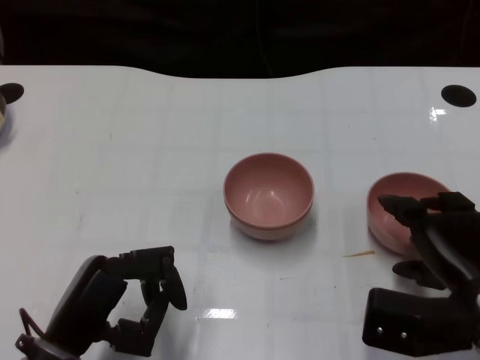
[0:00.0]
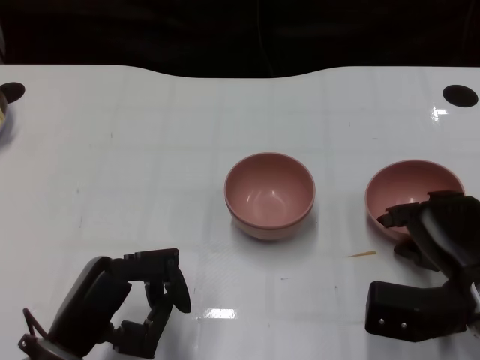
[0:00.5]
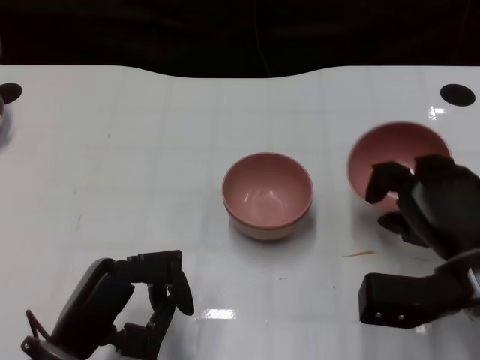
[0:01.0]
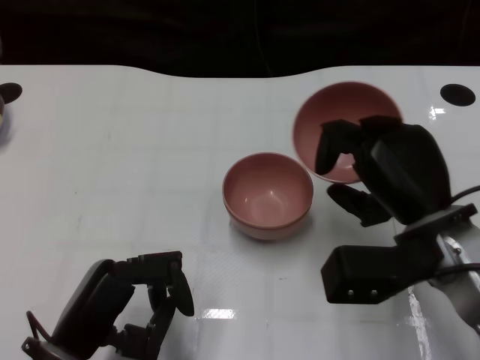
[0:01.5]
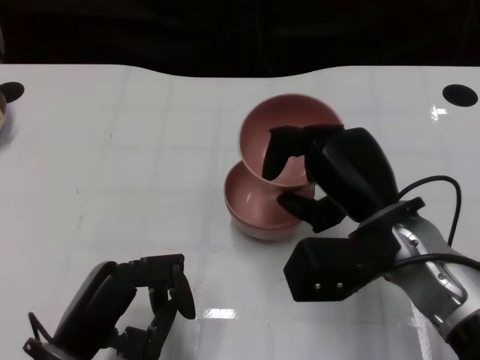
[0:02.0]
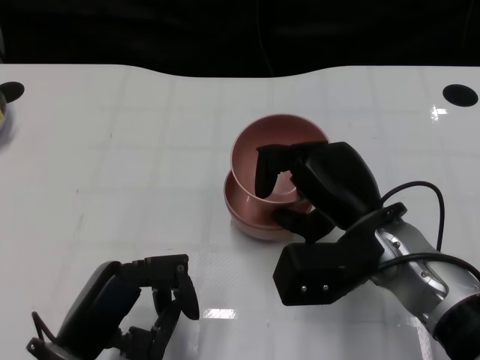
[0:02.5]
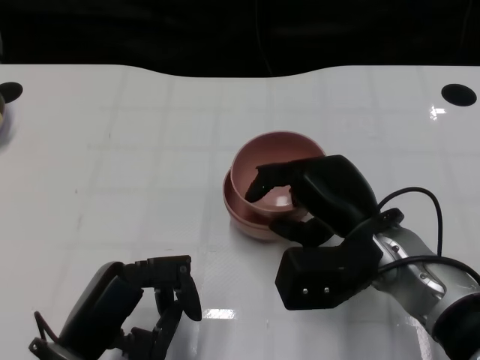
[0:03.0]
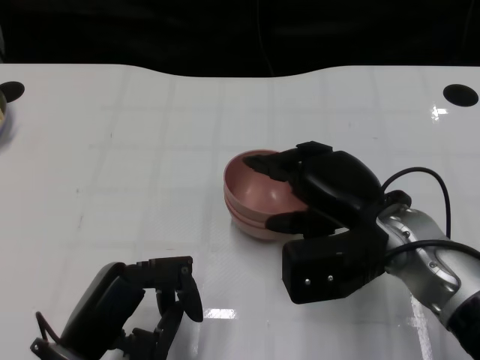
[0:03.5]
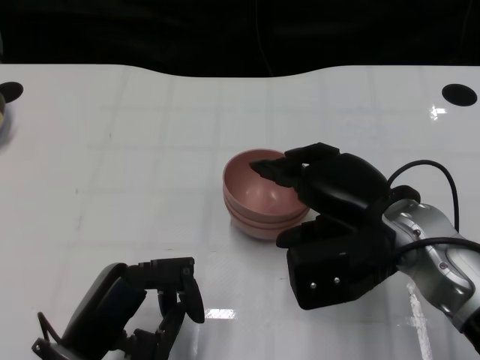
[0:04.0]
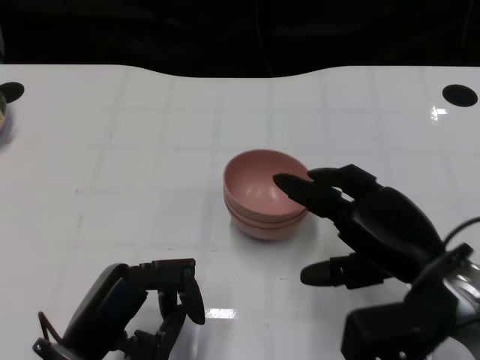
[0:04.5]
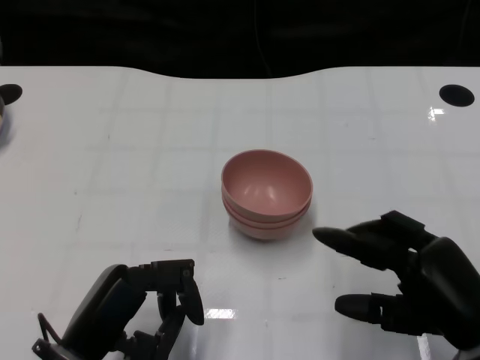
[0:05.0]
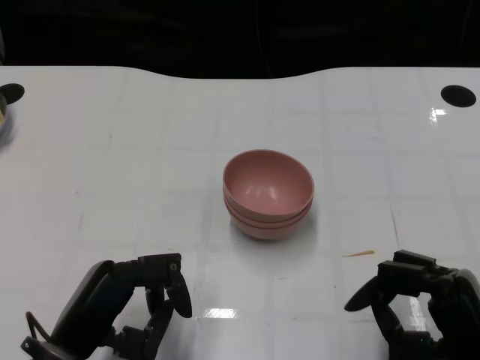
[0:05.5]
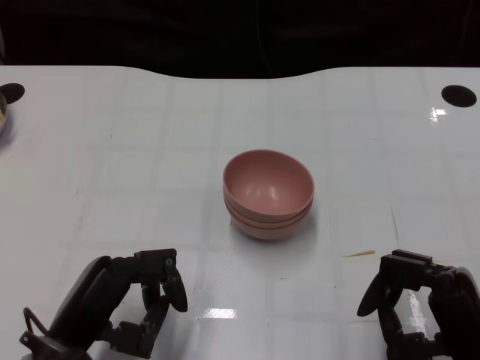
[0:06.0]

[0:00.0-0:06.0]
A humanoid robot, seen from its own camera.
Task of the whole recording: Pick up the bowl on one side of the table and place it on top of the middle bowl, then pick up the bowl on the other side of the table and place it on top of the middle bowls.
Step, 0:01.0 to 0:04.0: Place the bowl on the right onto the bowl in the middle with right gripper.
0:00.0 to 0:02.0: The right hand shifts some 10 cm to the left and forward.
0:04.0 to 0:06.0: The right hand moves backward, downward and to the right, roughly 15 cm.

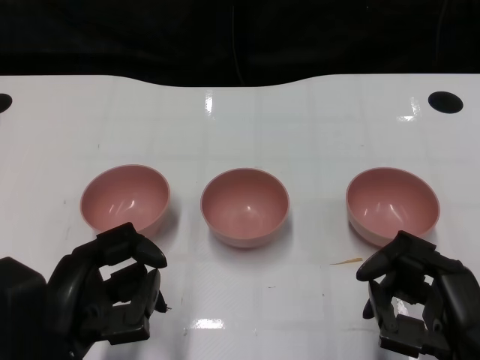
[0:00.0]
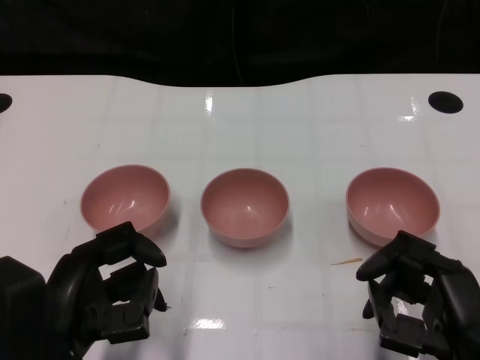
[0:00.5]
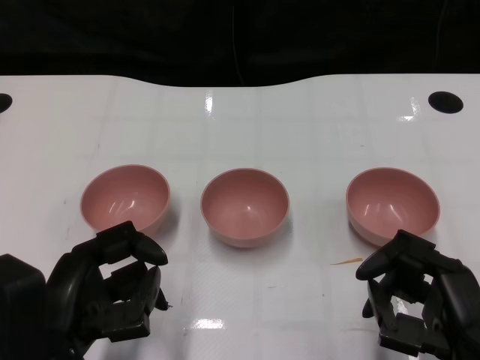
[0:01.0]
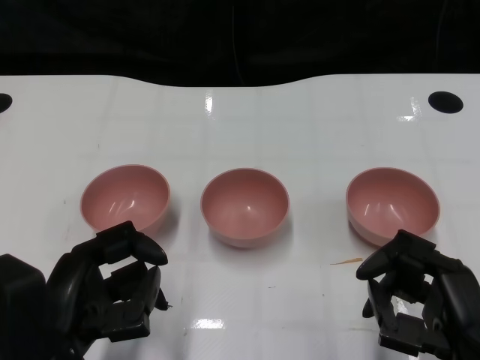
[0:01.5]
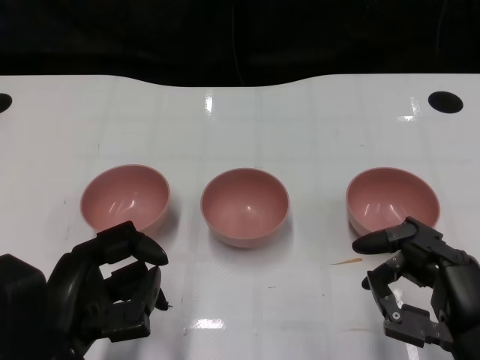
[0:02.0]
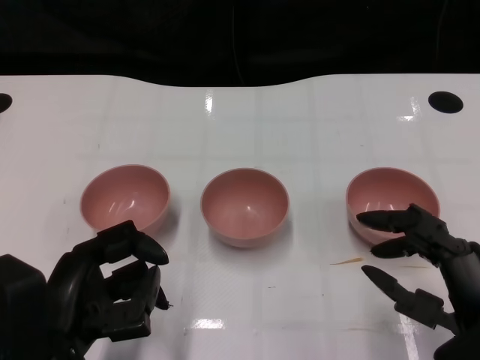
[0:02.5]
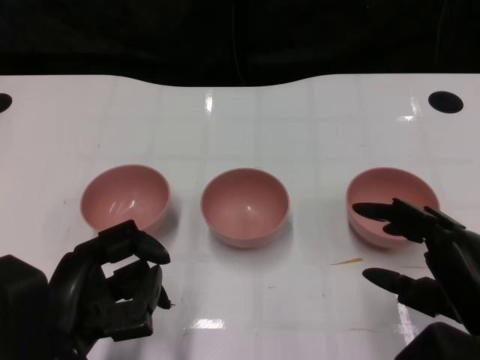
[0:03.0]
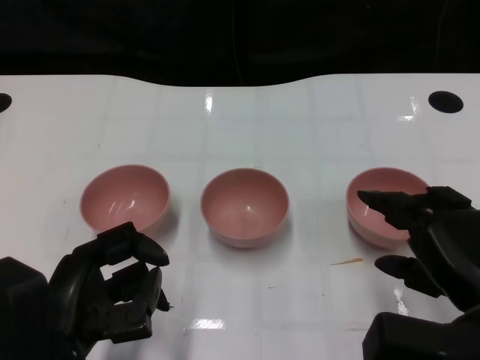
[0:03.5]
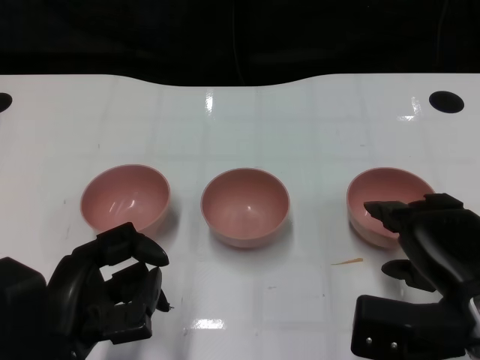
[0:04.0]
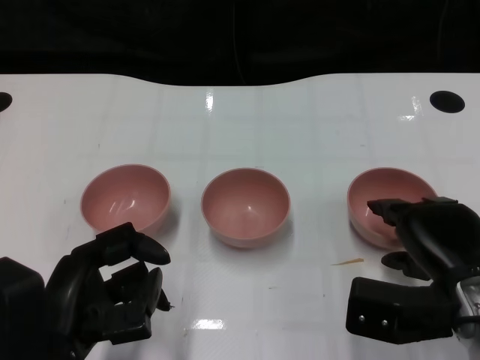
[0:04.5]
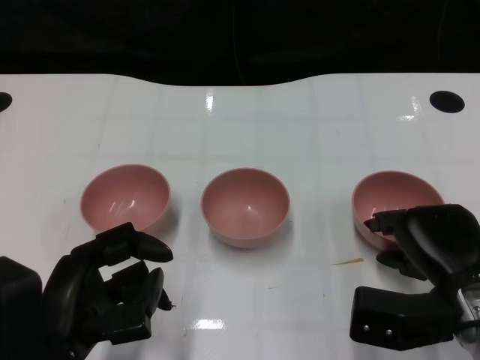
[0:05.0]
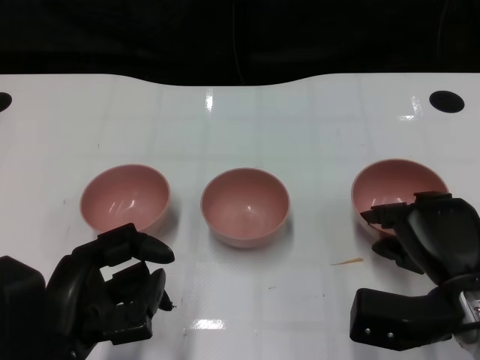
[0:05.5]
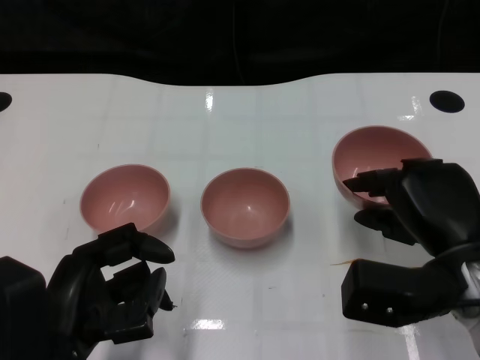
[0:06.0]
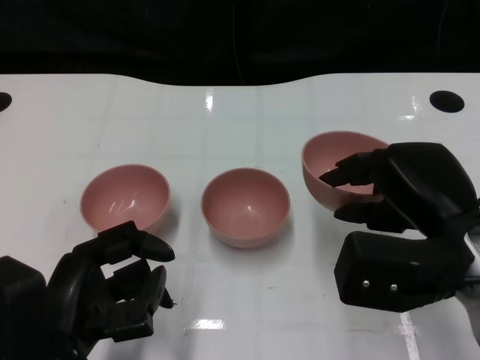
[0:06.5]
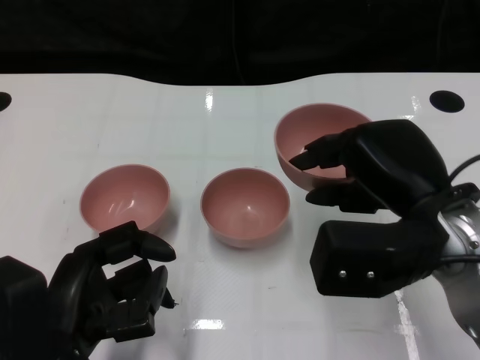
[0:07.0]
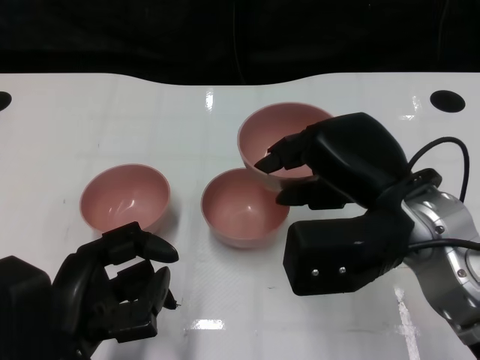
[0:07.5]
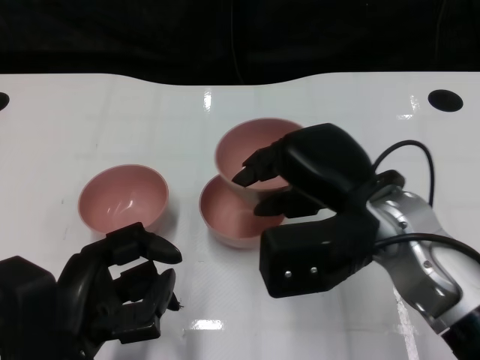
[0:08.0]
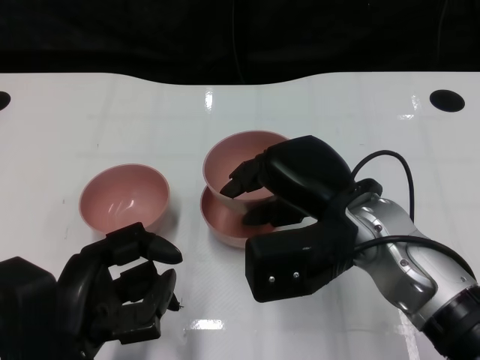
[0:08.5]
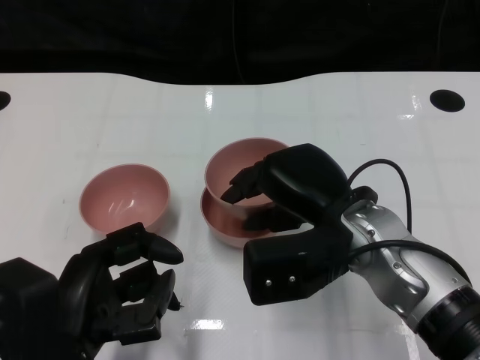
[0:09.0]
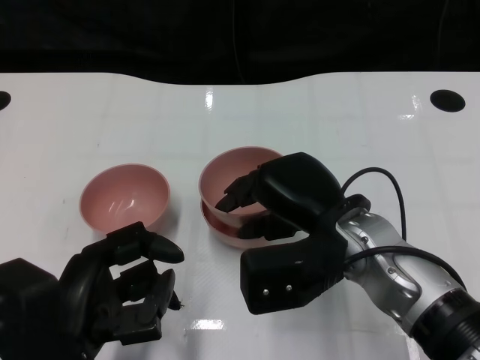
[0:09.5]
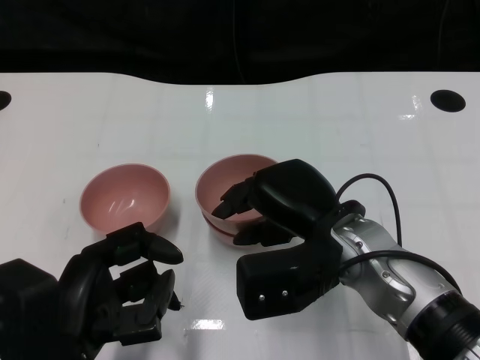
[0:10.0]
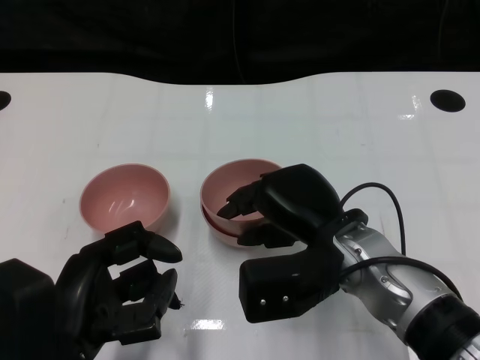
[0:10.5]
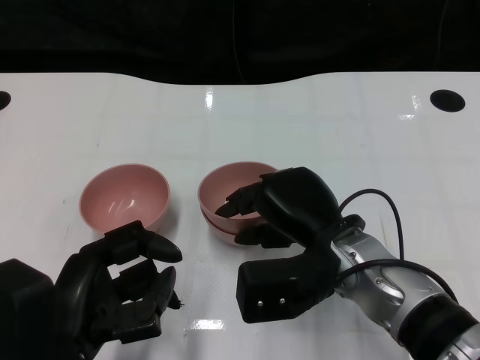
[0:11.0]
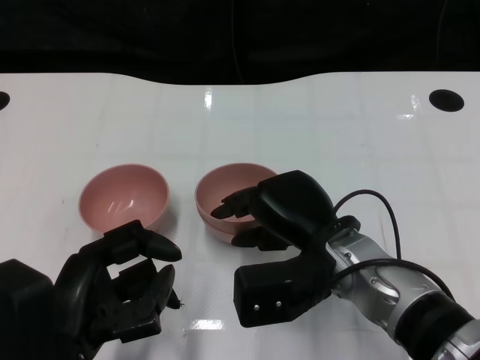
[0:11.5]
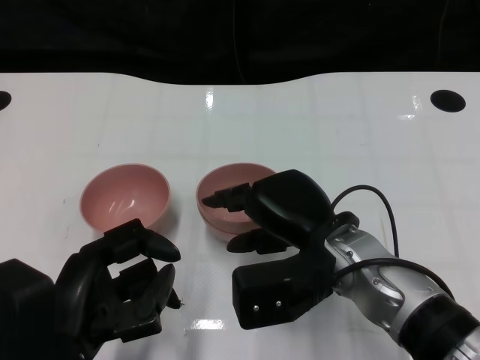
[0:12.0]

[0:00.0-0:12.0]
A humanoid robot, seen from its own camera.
Task of the whole recording: Pick up the bowl on one side of the table and place it on top of the middle bowl, then pick up the bowl on the other side of the table and place it on top of the middle bowls.
Step, 0:02.0 to 0:05.0: Grasp the bowl on the right with the right gripper.
0:02.0 to 0:04.0: The right hand heads forward, covering some 5 cm.
0:04.0 to 0:06.0: The hands stay close to where they were, moving slightly.
0:06.0 to 0:08.0: The right hand moves to the left and upward, about 10 cm.
0:08.0 to 0:10.0: The right hand moves approximately 5 cm.
0:10.0 to 0:12.0: The hands move only a little.

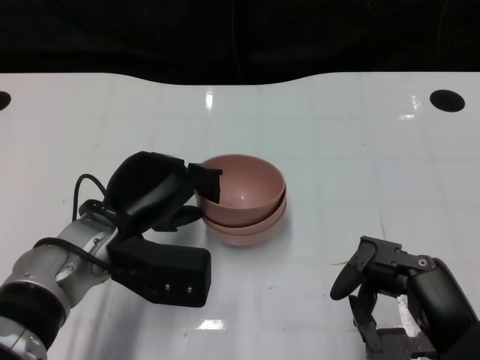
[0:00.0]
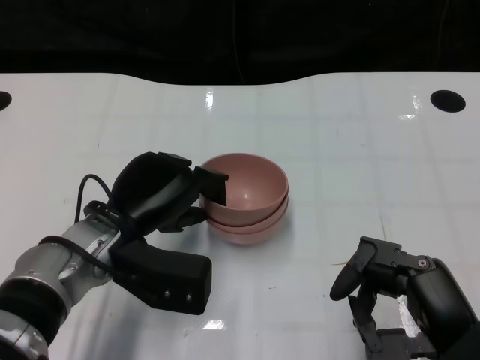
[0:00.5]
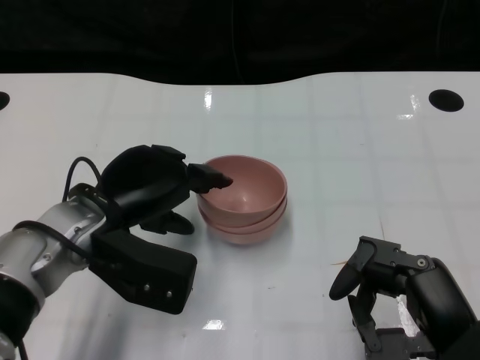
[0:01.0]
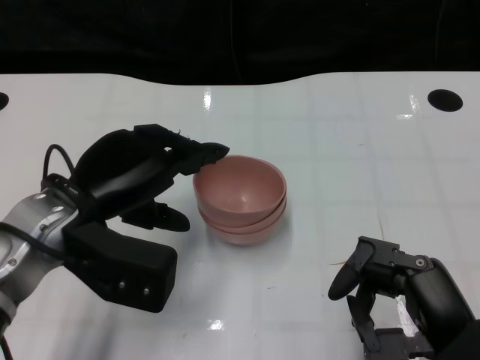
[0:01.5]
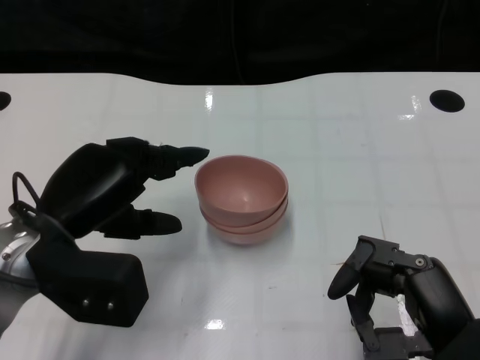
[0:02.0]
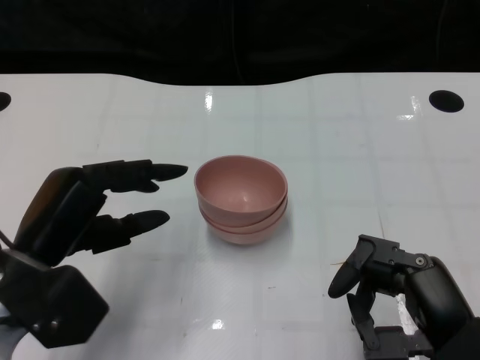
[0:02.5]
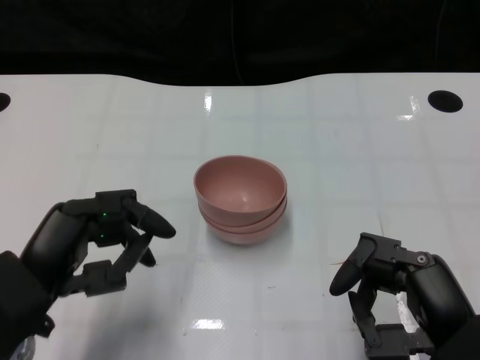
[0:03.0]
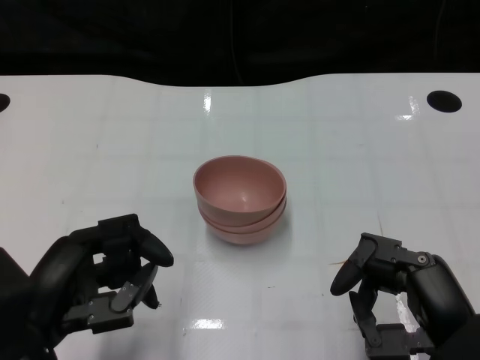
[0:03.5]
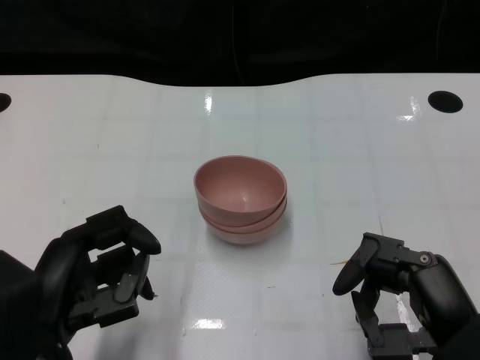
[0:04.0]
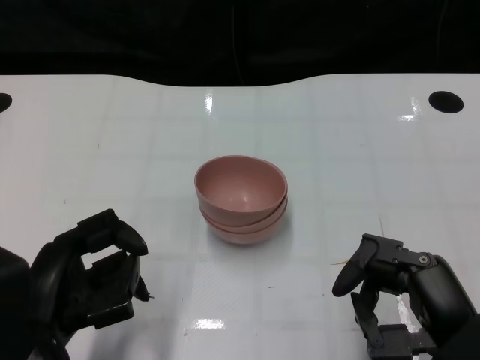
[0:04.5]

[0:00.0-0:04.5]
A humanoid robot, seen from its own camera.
Task of the whole recording: Pick up the bowl on one side of the table and place it on top of the middle bowl, then pick up the bowl on the other side of the table and place it on top of the middle bowls.
Step, 0:00.0 to 0:02.0: Place the bowl on the left onto the bowl in the middle with left gripper.
0:00.0 to 0:02.0: The left hand goes approximately 5 cm to the left.
0:02.0 to 0:04.5: The left hand goes some 10 cm backward.

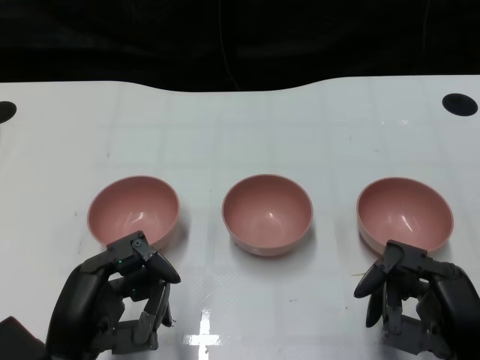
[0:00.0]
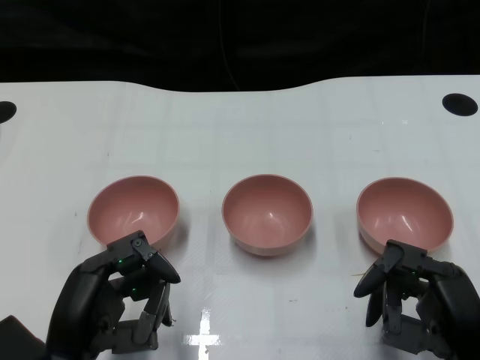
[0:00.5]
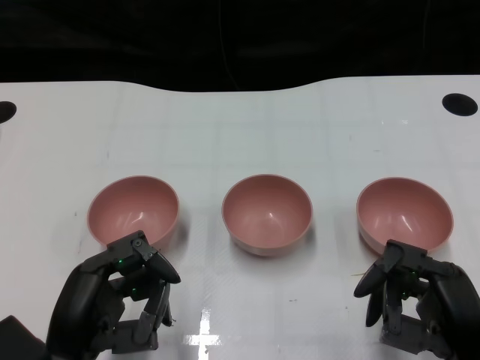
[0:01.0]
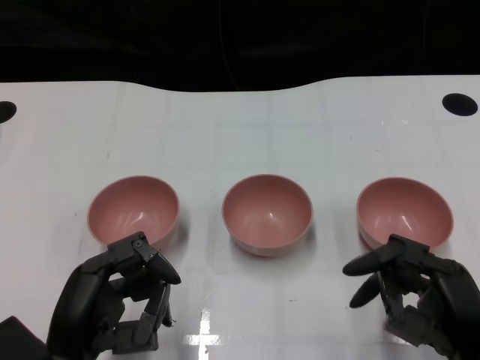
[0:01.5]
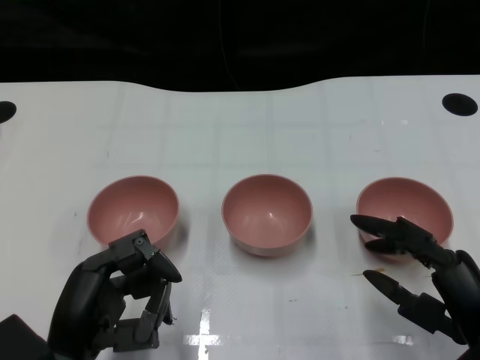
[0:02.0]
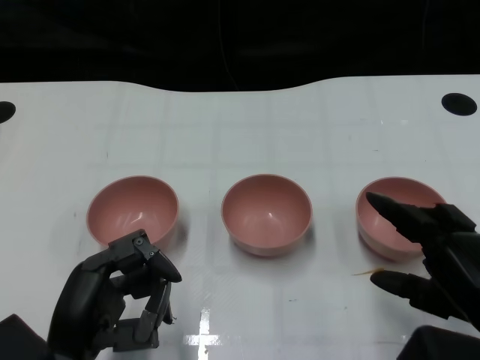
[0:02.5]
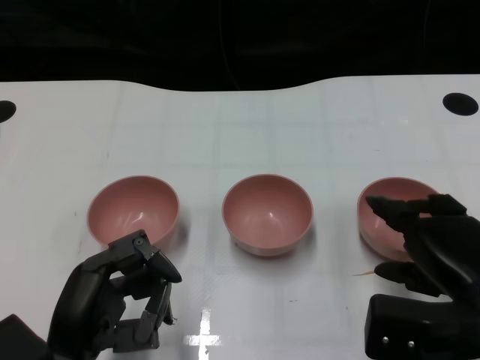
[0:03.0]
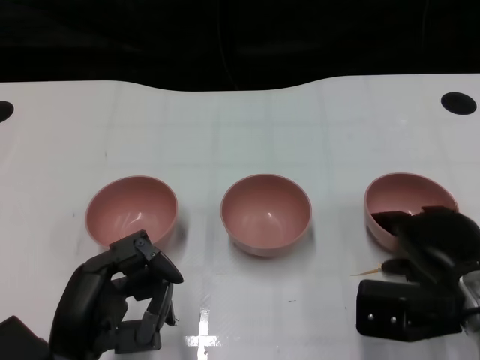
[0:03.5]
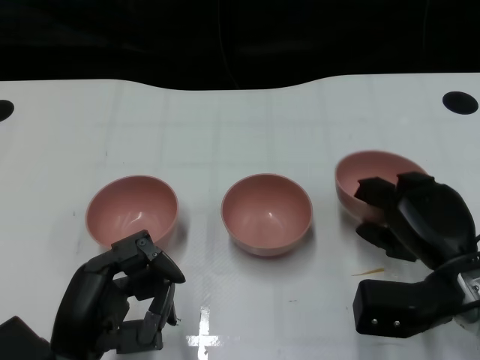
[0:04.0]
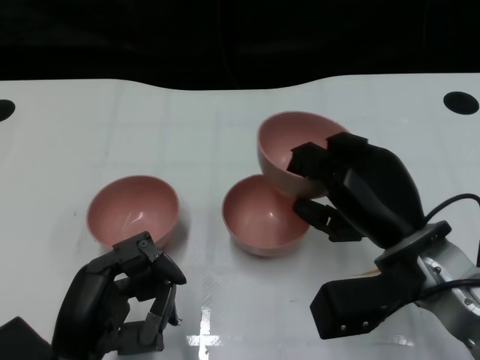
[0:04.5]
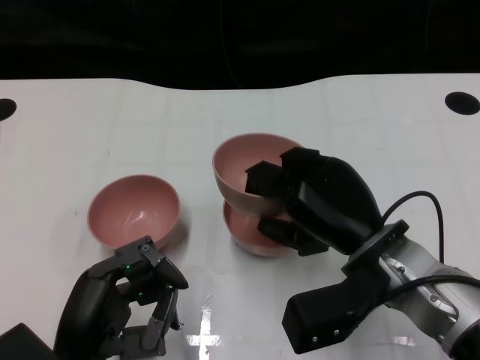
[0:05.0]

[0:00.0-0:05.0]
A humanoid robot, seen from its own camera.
Task of the whole recording: Pick up the bowl on one side of the table and place it on top of the middle bowl, then pick up the bowl on the other side of the table and place it on top of the middle bowls.
Step, 0:01.5 to 0:03.5: Grasp the bowl on the right with the right gripper.
0:02.5 to 0:05.0: The right hand goes approximately 15 cm to the left and forward.
